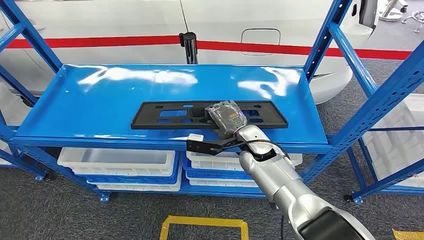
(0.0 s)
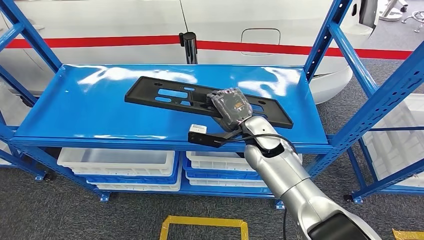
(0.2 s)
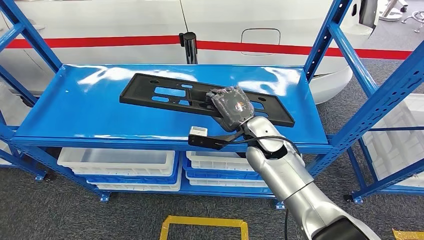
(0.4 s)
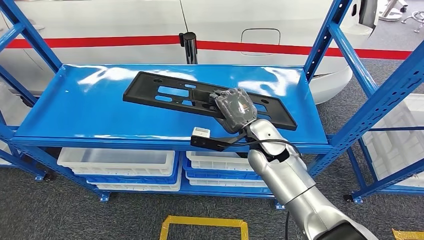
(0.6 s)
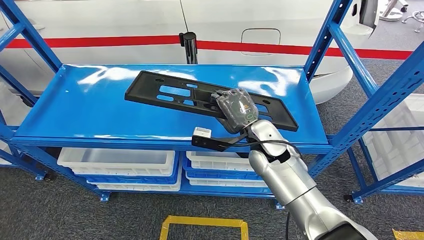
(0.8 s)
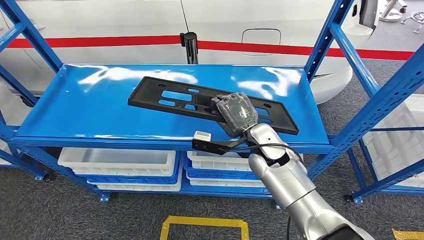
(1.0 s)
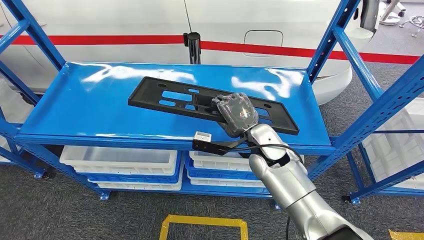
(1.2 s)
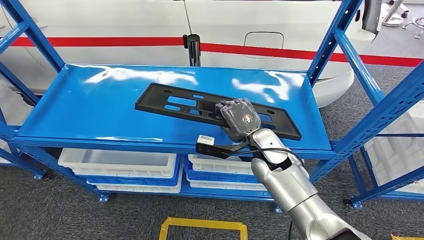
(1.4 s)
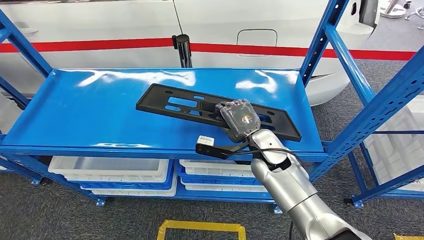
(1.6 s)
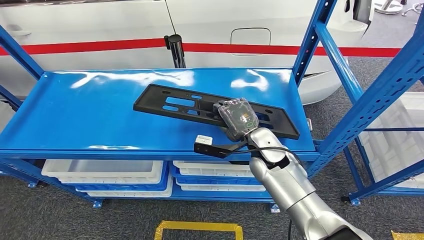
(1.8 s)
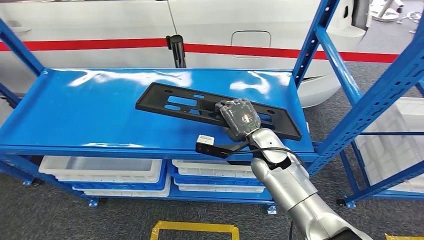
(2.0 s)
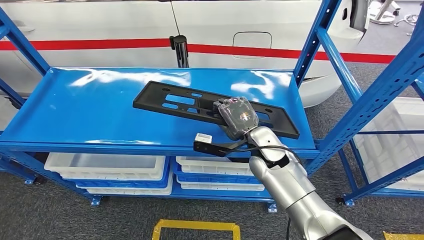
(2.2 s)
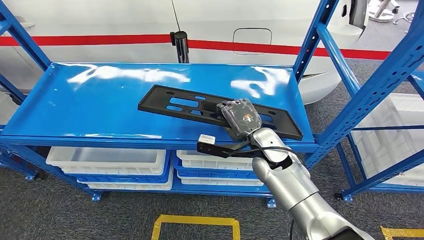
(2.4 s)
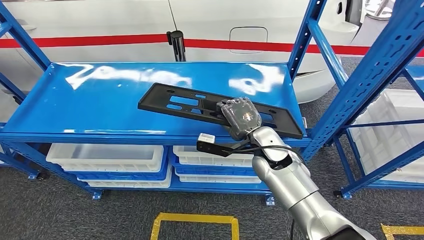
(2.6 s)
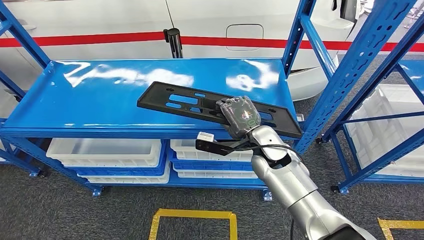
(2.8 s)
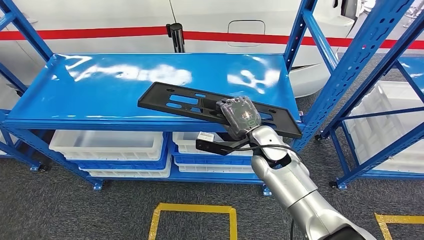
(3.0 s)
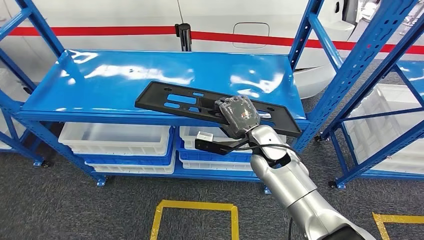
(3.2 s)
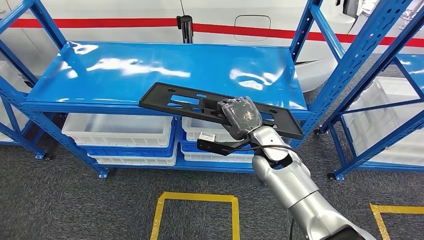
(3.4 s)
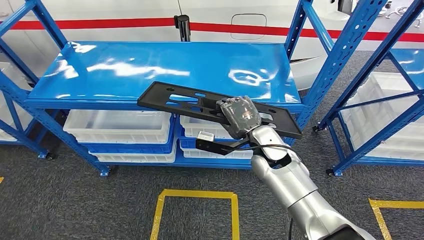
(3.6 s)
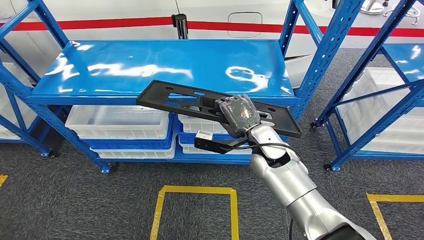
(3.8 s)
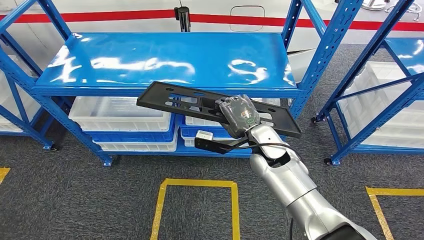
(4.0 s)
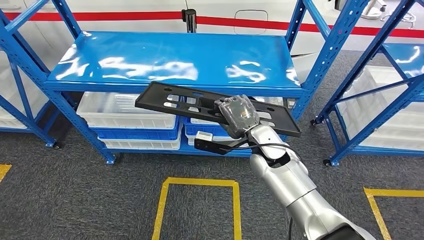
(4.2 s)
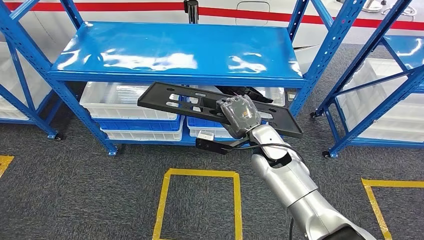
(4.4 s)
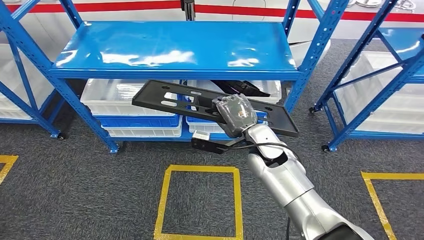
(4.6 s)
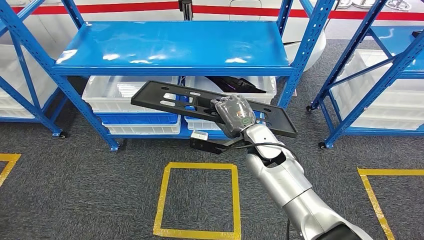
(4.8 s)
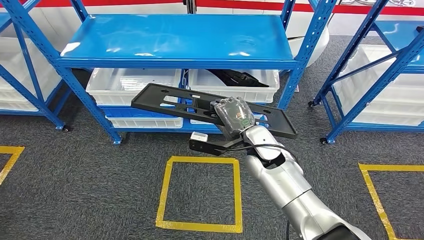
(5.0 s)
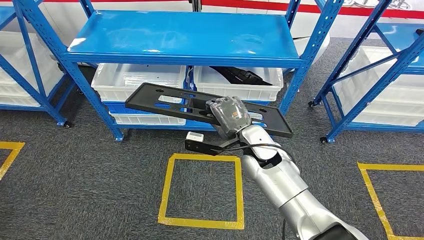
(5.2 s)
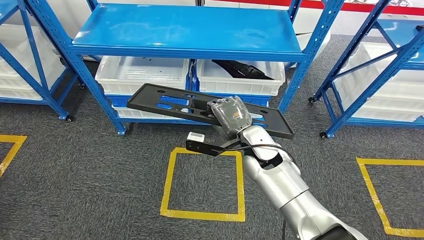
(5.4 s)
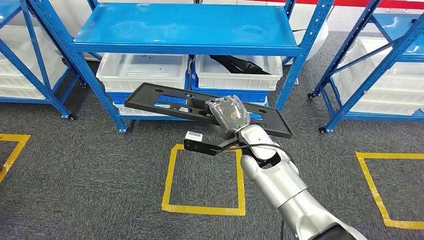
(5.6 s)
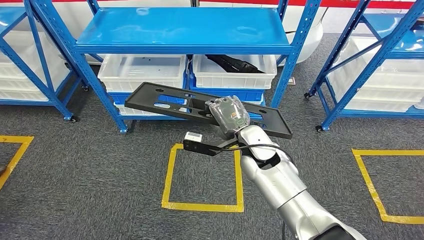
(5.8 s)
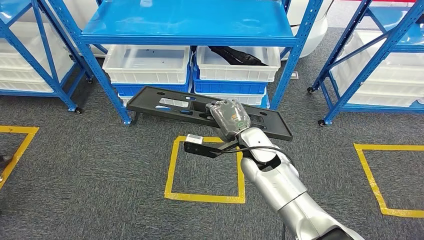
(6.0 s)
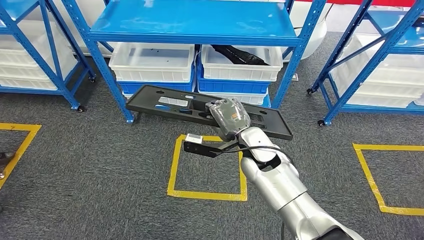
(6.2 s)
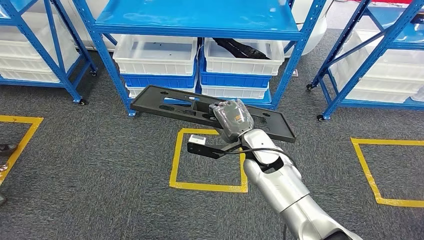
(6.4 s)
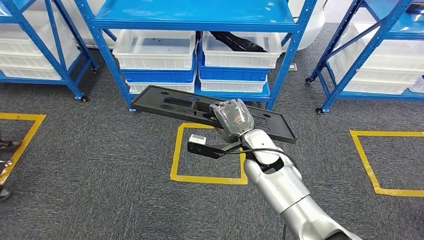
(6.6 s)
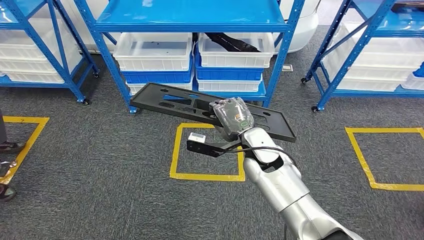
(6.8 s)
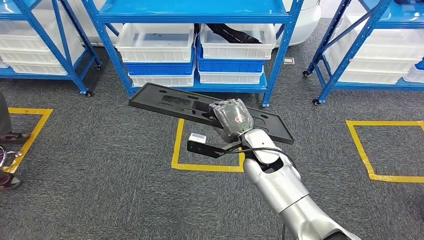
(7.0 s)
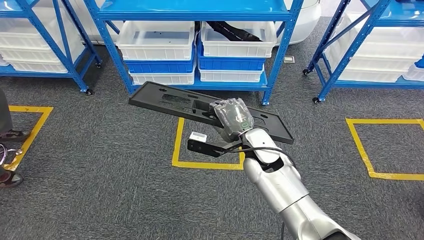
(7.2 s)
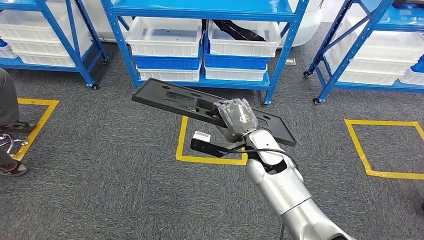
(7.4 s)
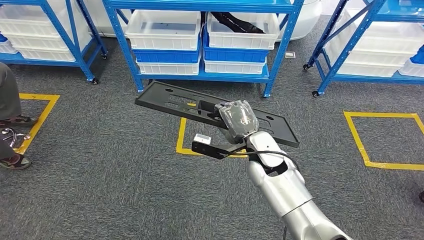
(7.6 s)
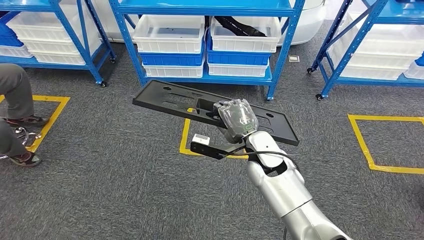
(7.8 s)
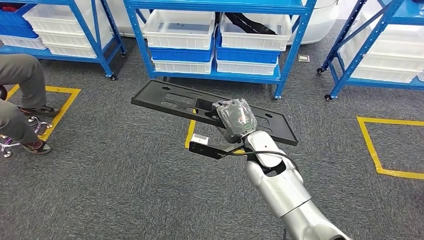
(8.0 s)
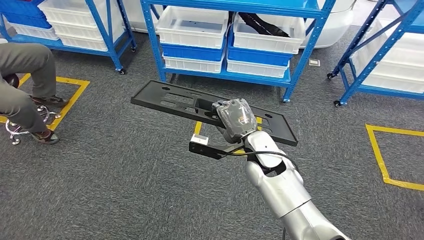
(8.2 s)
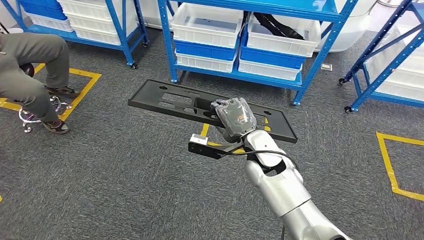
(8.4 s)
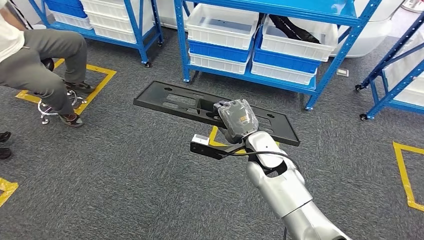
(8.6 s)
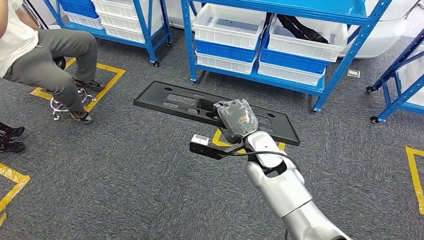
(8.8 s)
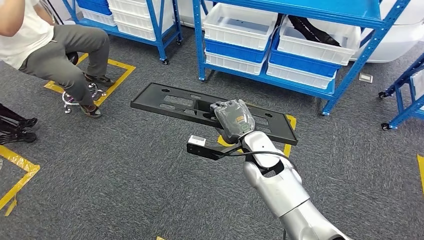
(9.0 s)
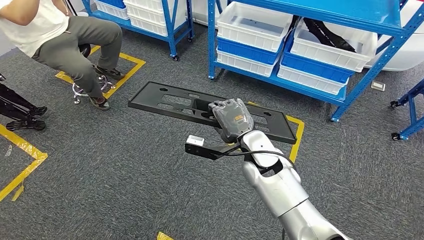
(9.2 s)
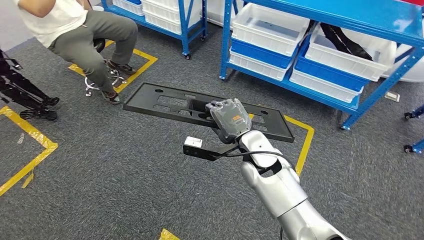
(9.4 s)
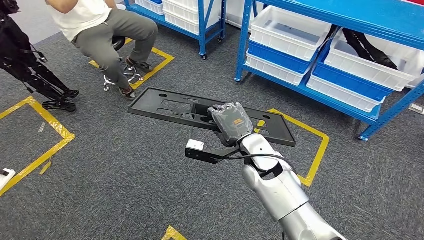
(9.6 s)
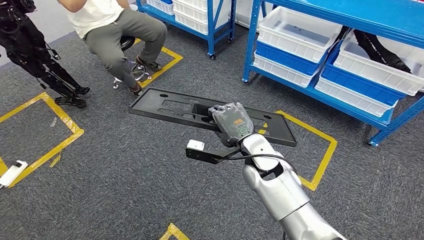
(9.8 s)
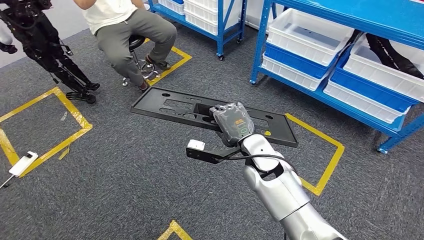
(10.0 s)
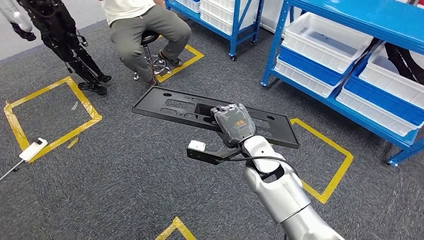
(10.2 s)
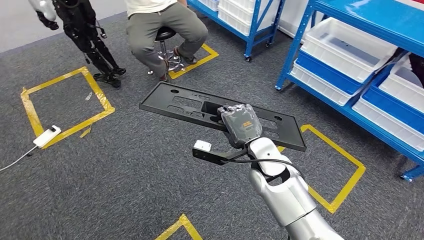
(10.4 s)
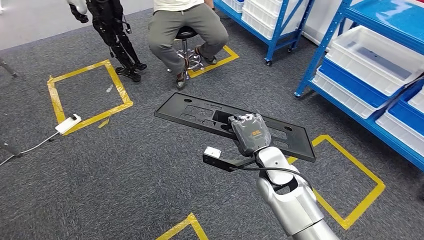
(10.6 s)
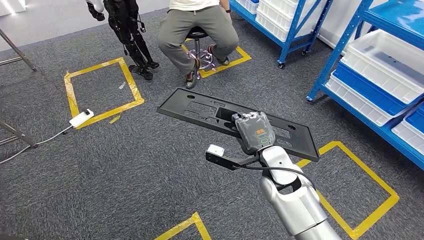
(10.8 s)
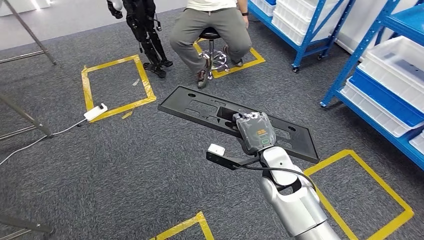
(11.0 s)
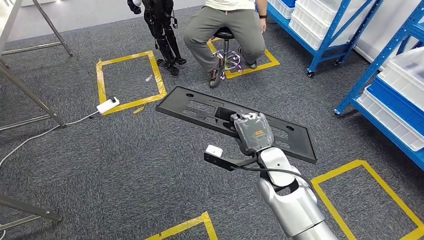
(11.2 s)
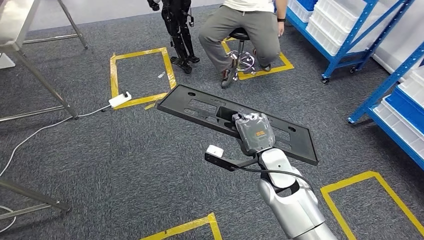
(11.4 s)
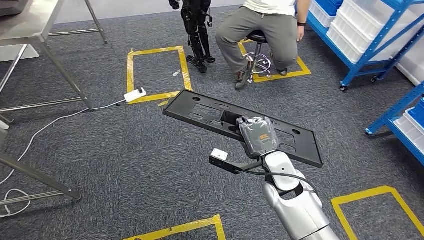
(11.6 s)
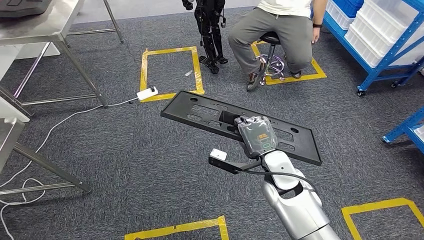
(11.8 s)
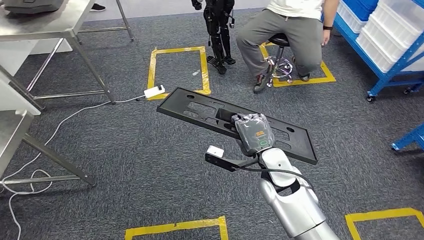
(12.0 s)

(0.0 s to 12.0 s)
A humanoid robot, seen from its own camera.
Step, 0.0 s - 4.8 s: Pick up the large material from the shelf.

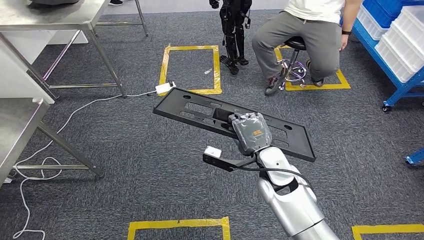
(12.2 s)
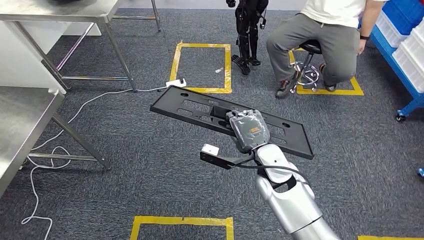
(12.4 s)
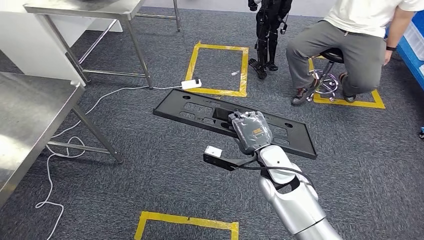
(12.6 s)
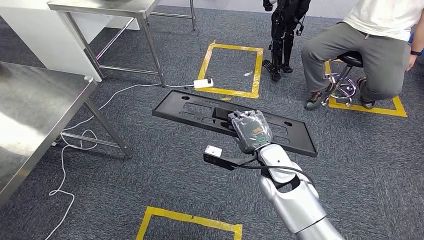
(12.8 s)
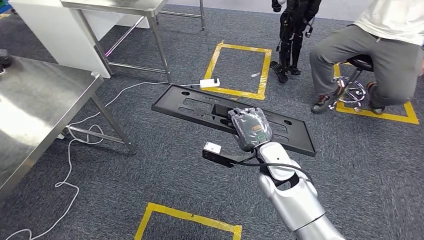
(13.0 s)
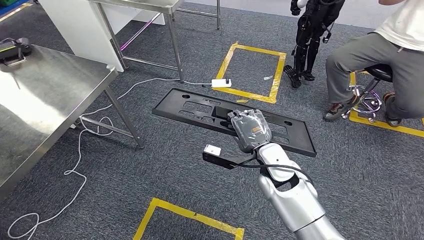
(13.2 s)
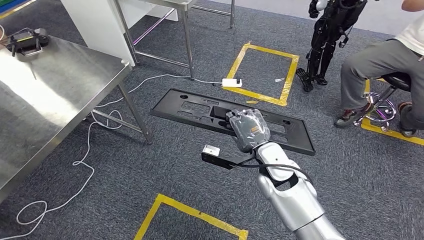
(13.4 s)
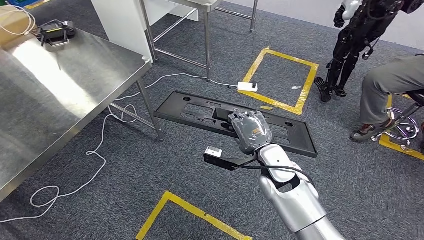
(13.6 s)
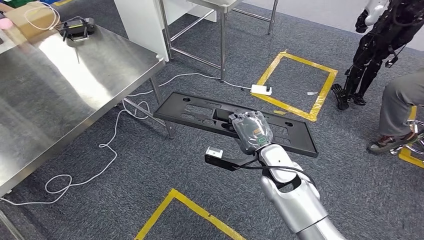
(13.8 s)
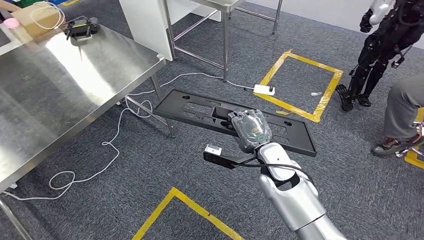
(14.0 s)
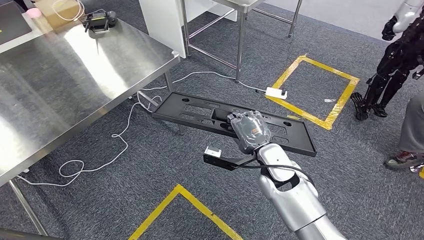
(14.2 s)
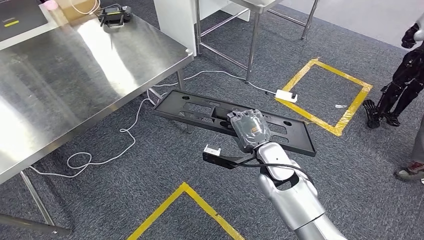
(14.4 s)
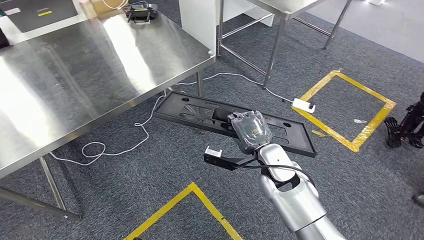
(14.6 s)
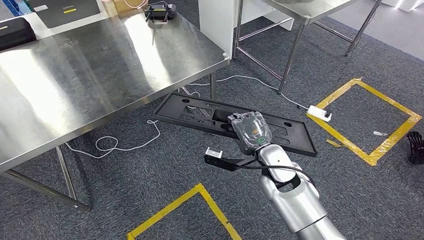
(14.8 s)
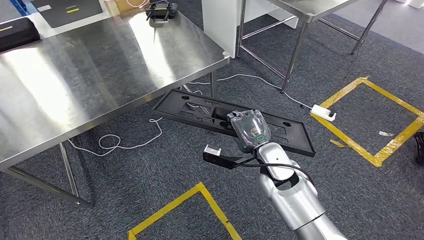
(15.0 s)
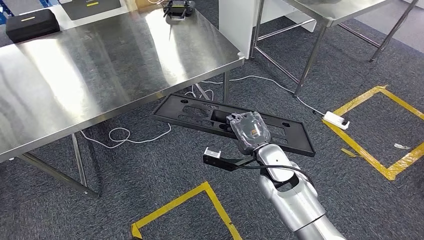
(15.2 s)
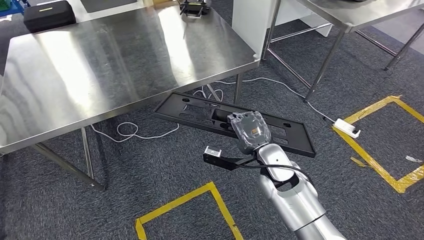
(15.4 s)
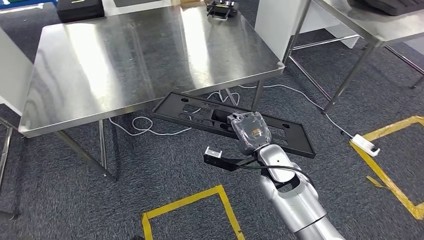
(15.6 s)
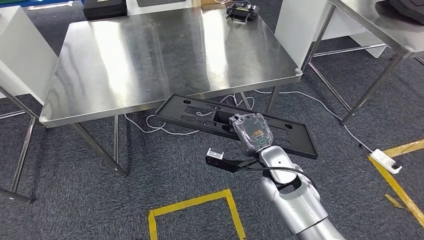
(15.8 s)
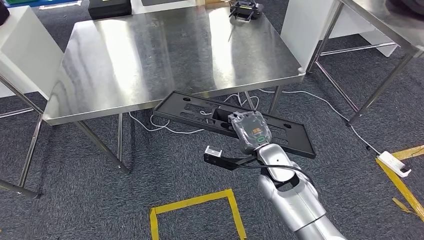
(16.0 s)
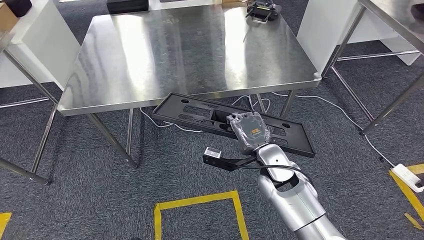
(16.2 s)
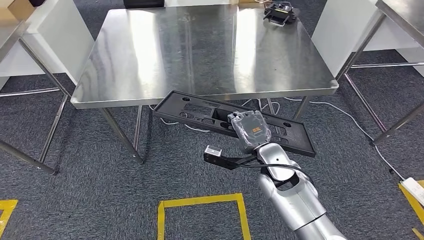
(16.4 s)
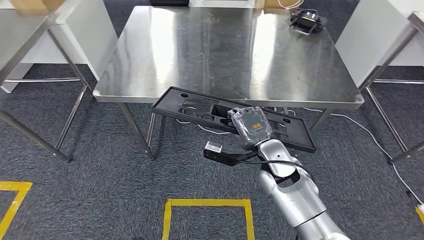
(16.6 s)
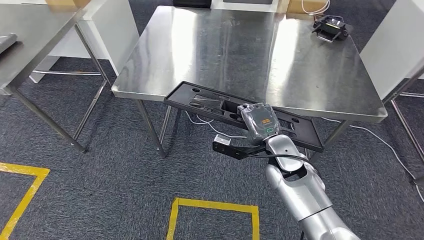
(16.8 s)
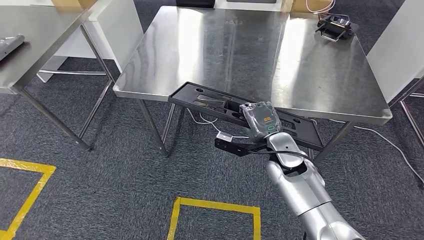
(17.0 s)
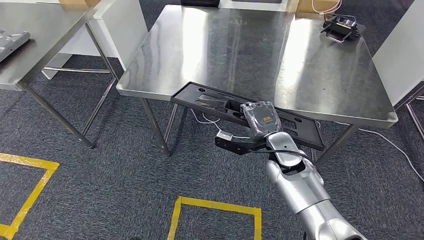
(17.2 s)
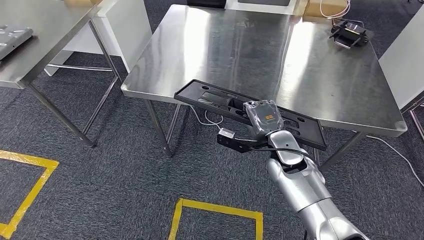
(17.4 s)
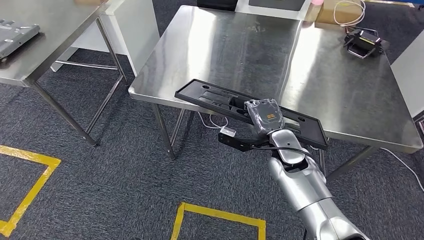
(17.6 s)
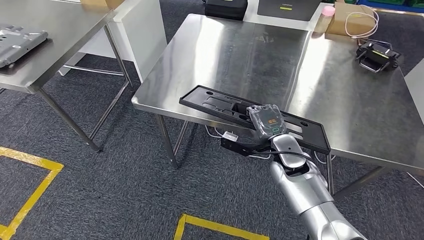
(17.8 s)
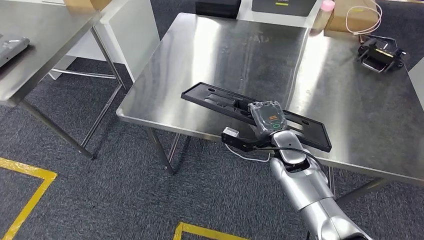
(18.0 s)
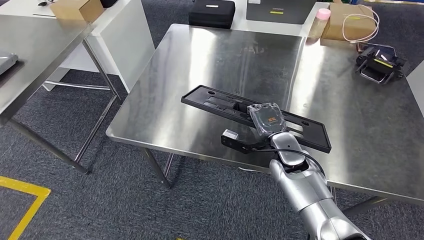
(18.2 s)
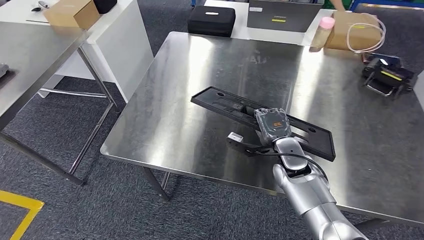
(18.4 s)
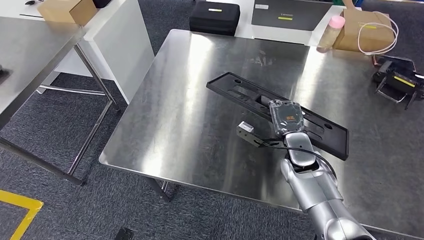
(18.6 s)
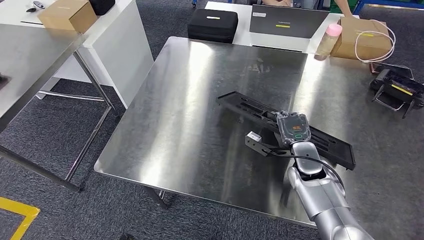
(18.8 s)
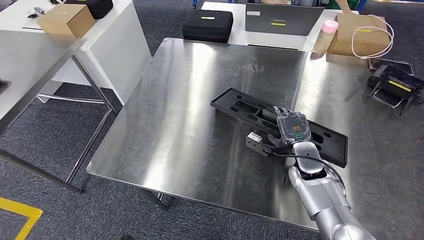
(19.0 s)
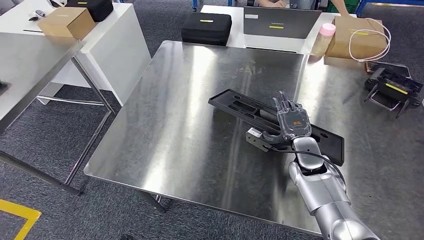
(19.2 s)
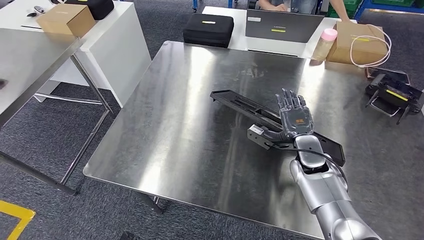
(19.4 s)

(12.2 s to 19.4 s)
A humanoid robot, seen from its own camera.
Step, 12.2 s - 15.8 s: Move the large material to the front of the workbench.
